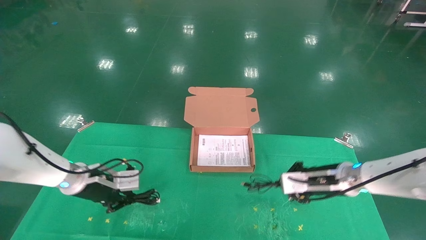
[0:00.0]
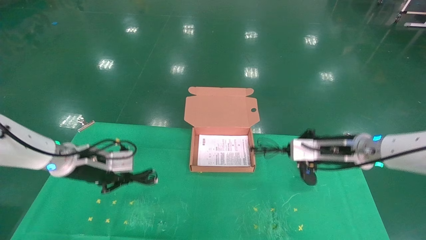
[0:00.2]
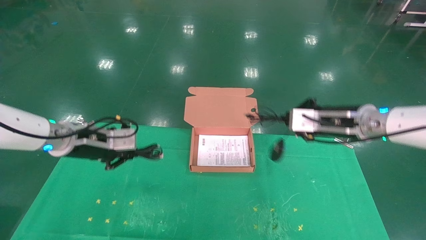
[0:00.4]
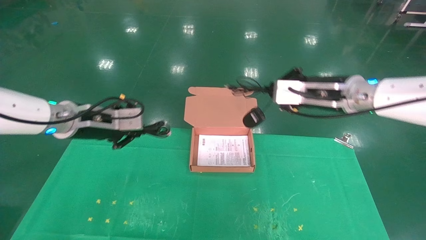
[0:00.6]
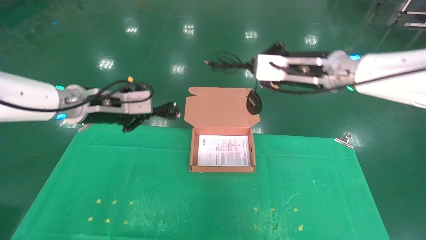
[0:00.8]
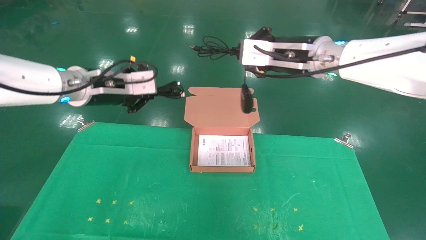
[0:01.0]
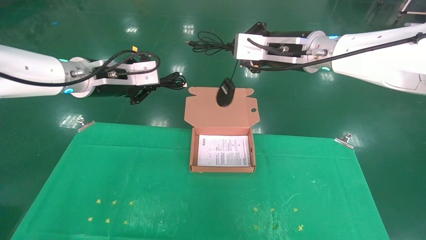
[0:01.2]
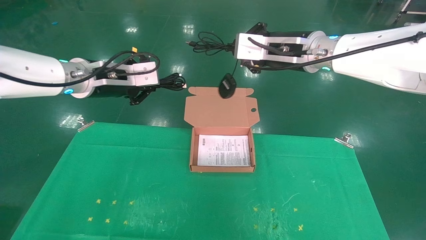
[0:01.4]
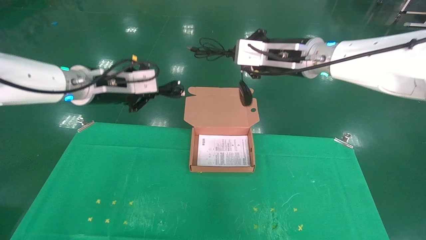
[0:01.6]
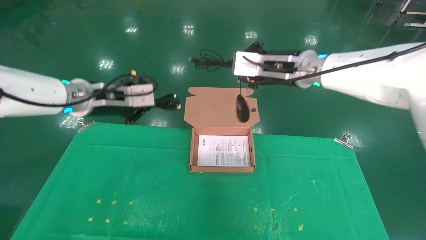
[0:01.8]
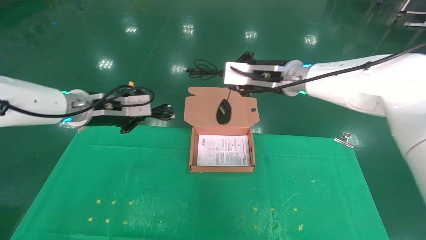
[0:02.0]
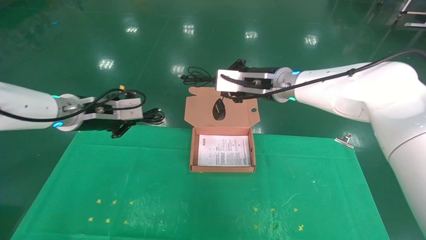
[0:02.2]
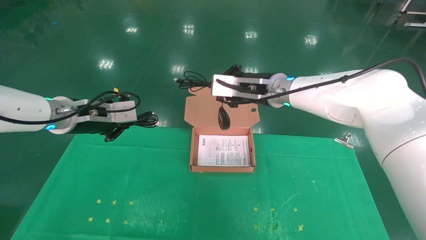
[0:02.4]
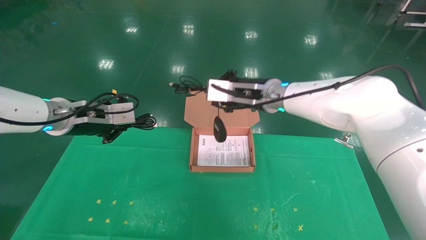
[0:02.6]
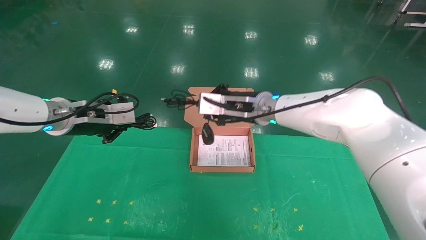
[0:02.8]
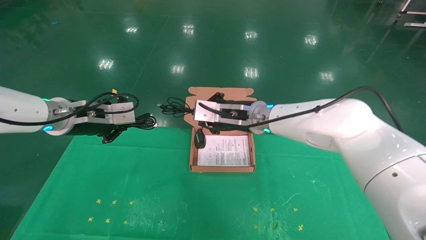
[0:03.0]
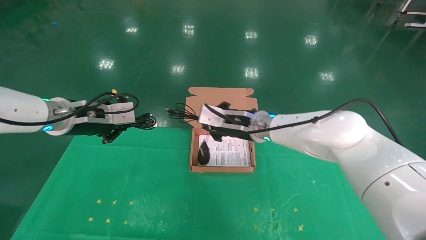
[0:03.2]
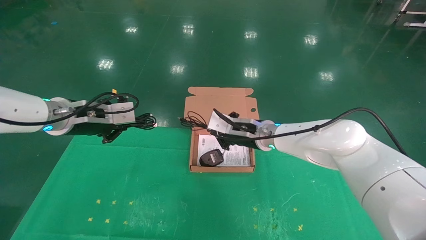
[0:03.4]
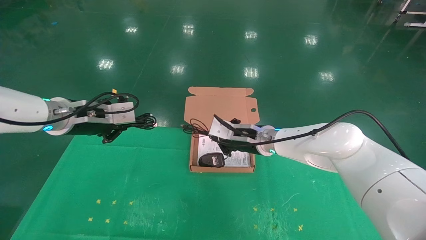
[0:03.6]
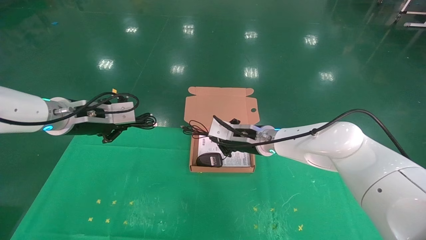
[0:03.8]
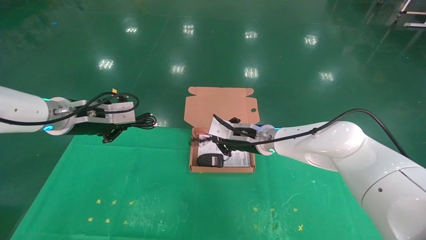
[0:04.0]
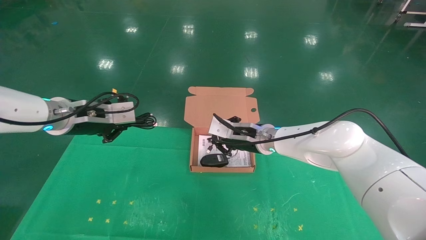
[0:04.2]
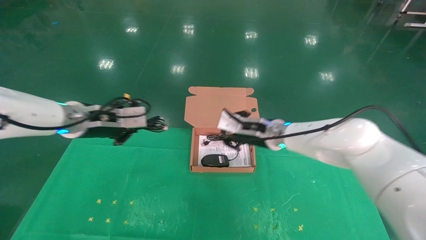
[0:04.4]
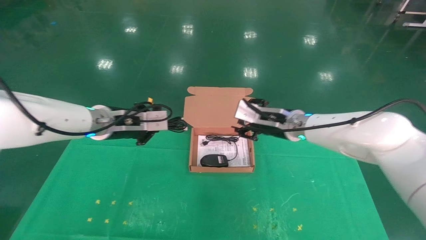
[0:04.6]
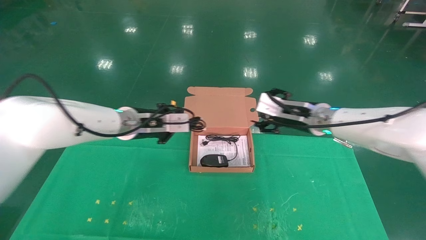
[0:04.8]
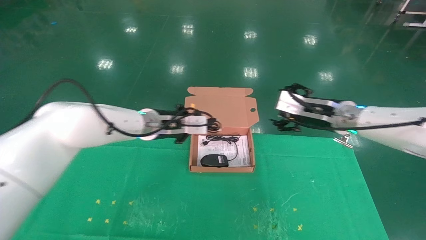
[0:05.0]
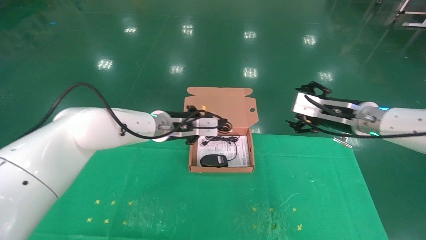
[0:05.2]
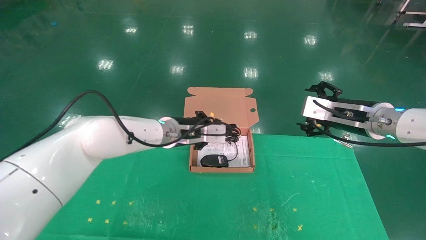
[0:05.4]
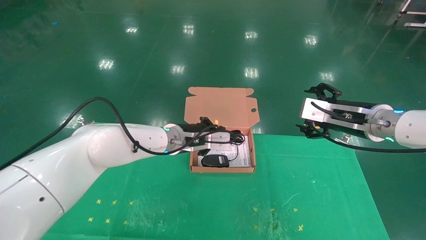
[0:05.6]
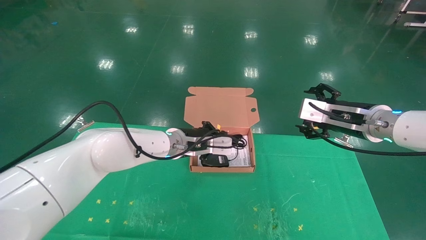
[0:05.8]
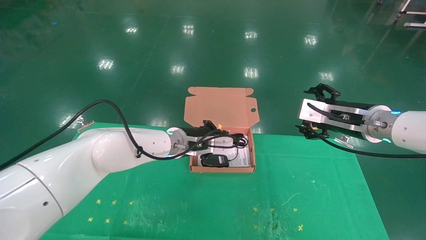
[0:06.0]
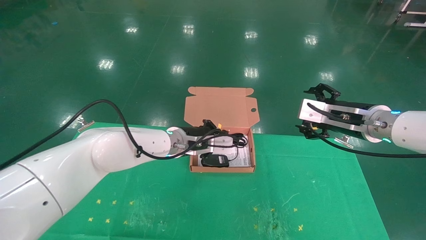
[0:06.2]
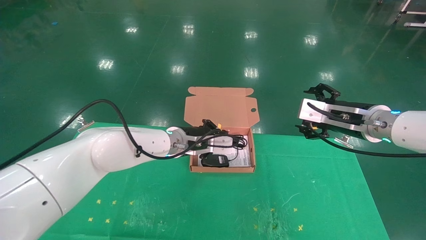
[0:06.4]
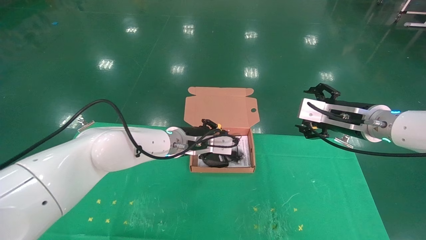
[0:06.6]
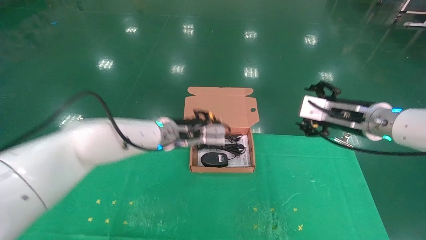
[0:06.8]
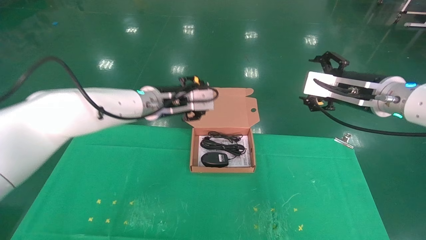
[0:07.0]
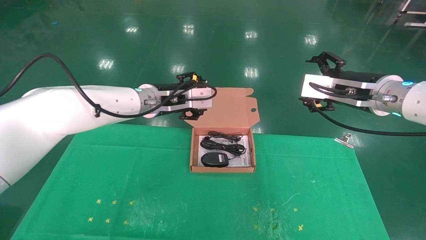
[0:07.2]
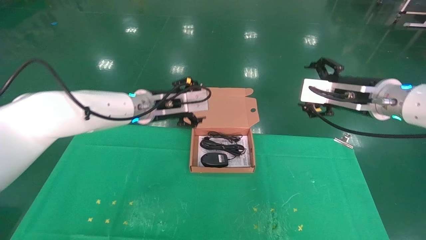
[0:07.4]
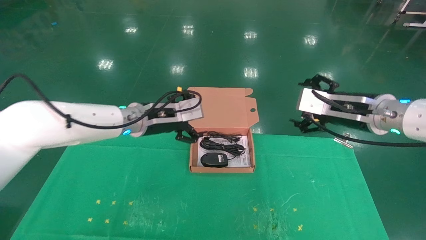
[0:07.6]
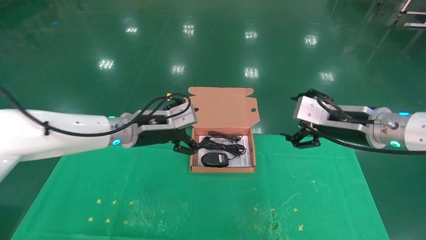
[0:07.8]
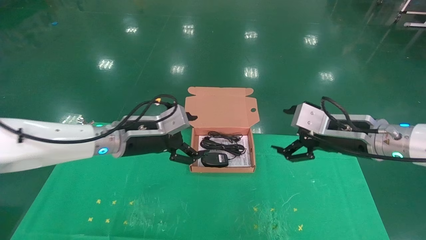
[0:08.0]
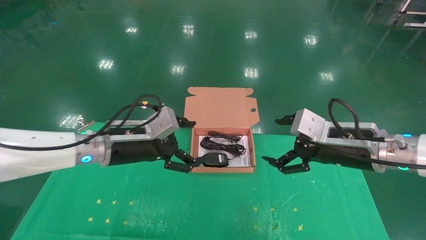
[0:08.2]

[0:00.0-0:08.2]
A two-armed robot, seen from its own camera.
Task of the whole recording: grasp data cable left put into box grasp mouse right put into box.
Step, 0:00.0 to 0:06.2: Place the mouse and power cord into the box.
0:00.0 to 0:01.6: The right gripper moves upward and to the left, some 30 cm. The left gripper goes approximately 25 cm upward.
0:01.6 to 0:03.2: The right gripper heads downward and to the left, covering about 15 cm, while the left gripper is displaced downward by about 5 cm.
0:03.2 to 0:05.0: The left gripper heads to the right and forward, covering about 15 cm. Meanwhile the right gripper shifts roughly 15 cm to the right, and opens up.
0:05.0 to 0:06.6: The left gripper heads to the right, covering some 5 cm. Meanwhile the right gripper moves approximately 5 cm.
0:06.6 to 0:08.2: The left gripper goes about 15 cm to the left and backward, and opens up; the right gripper travels backward by some 5 cm.
